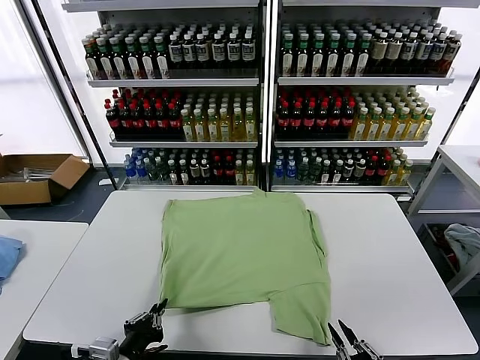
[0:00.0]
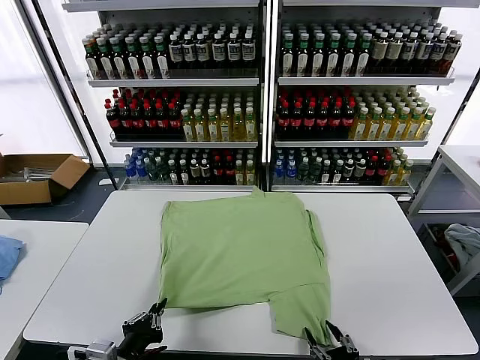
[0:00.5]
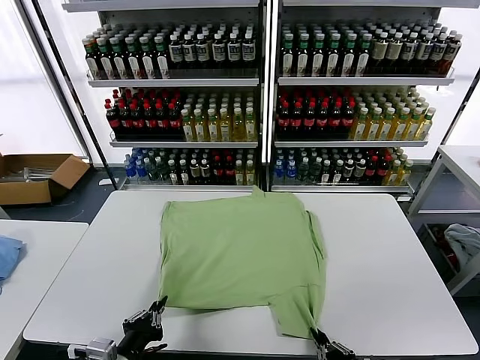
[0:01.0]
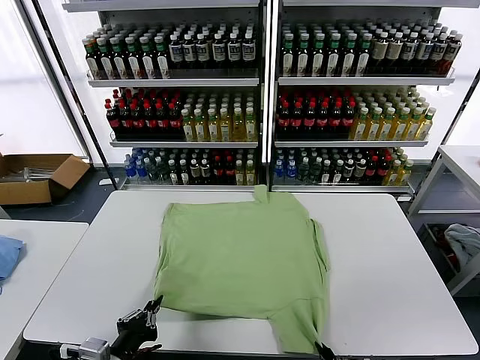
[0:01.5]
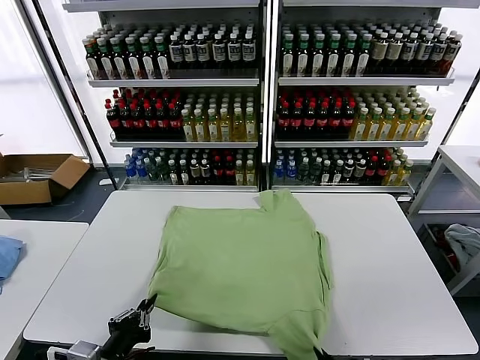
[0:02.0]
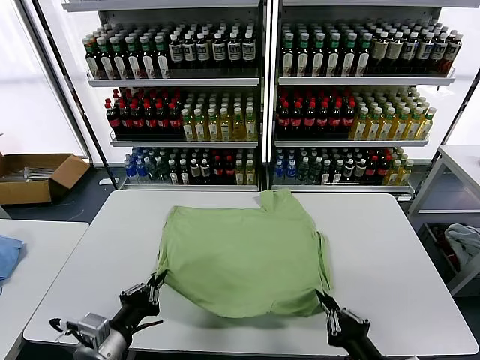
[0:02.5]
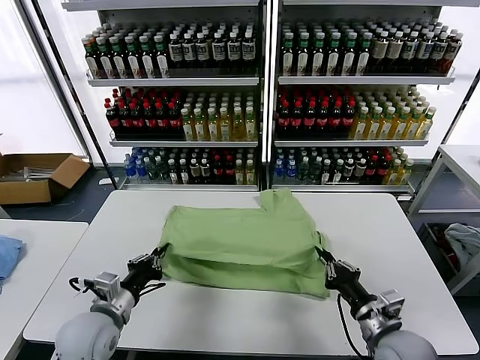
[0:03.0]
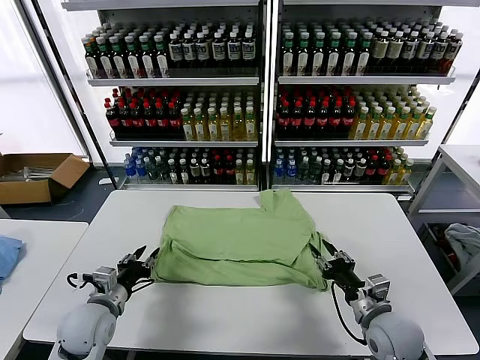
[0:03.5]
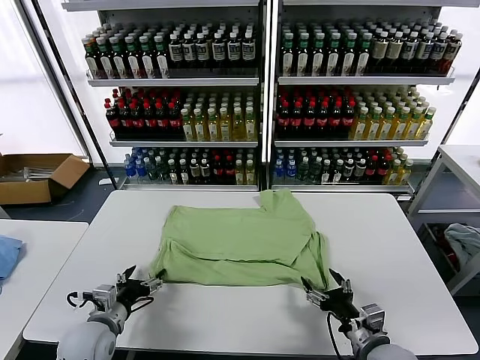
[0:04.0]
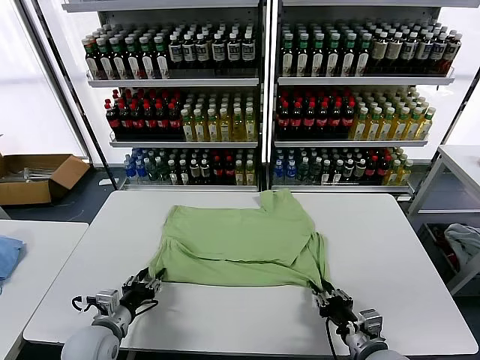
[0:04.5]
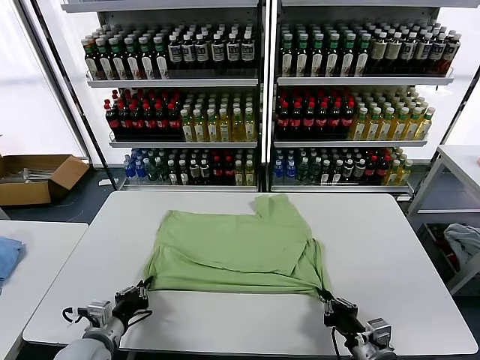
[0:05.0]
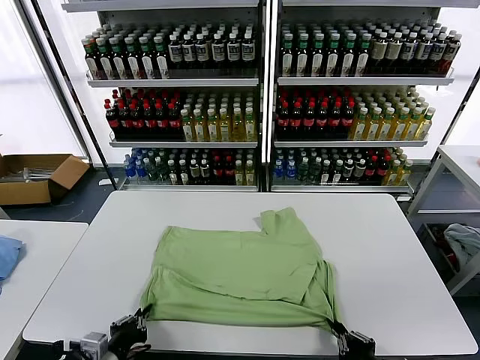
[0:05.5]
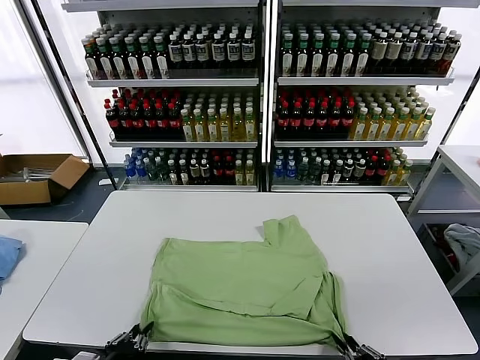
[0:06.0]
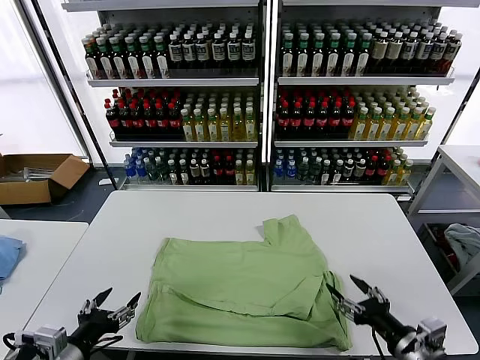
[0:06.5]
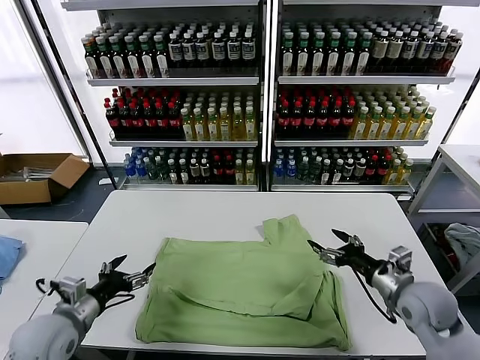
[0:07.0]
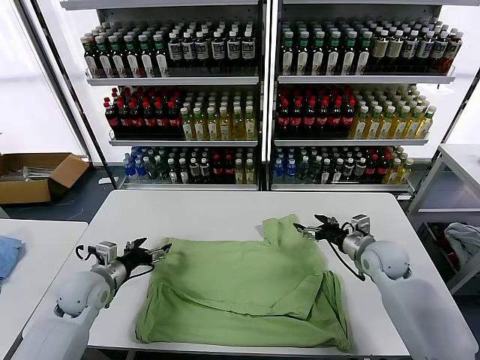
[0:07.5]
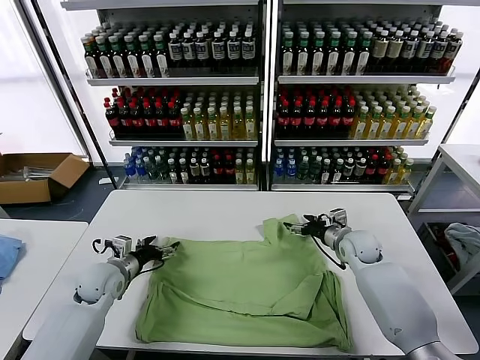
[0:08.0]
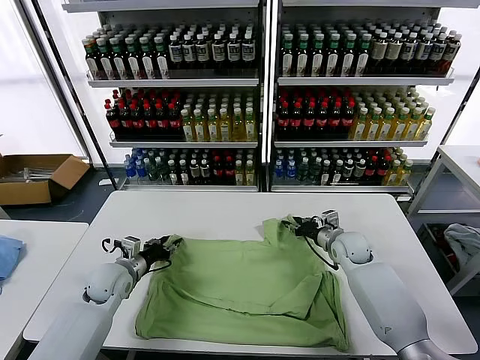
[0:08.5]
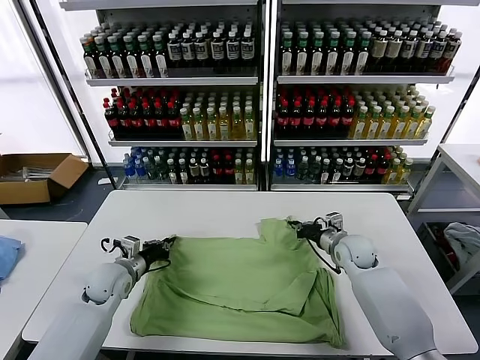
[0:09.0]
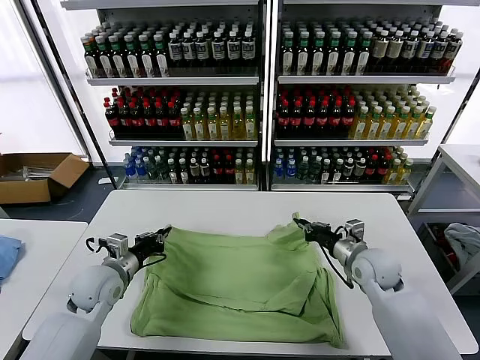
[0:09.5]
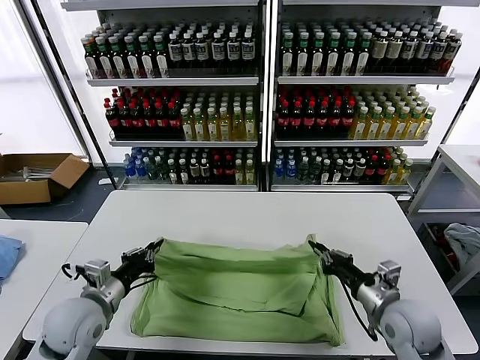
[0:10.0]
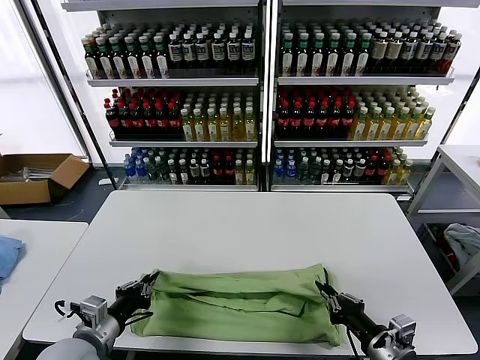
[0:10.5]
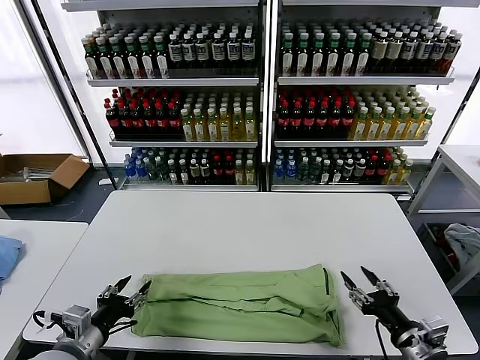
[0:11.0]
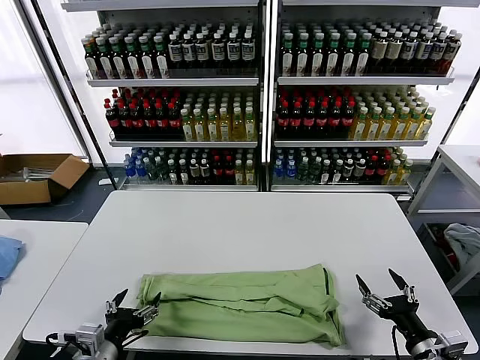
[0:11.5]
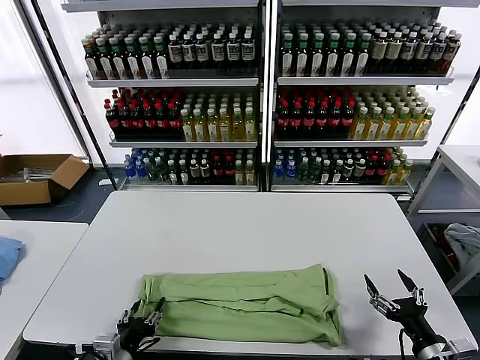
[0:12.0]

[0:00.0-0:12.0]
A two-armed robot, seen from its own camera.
Task of the whole recording: fold and organize the clothes.
Step, 0:01.5 to 0:03.5: use both grippers to drag the lower edge of the fabric forward and fold it over the upper edge.
Step, 0:04.0 to 0:06.0: Drag the clothes downward with both gripper.
Step, 0:06.5 to 0:08.5: use both grippers simultaneously to clamp the upper edge of the clothing fabric.
Step, 0:09.0 to 0:10.5: use both grippers to drag the upper edge of the fabric backward and fold it over the lower edge.
0:00.0 to 0:02.0: The right gripper travels upward by approximately 5 cm, and closes.
0:02.0 to 0:04.0: The left gripper travels forward and downward by some 15 cm, and opens its fingers, while the right gripper shifts some 20 cm forward, and opens its fingers.
0:04.0 to 0:06.0: The grippers both shift backward by approximately 15 cm. The left gripper closes its fingers, while the right gripper closes up.
0:06.0 to 0:08.0: Both grippers move forward, approximately 35 cm. The left gripper opens. Meanwhile the right gripper opens its fingers.
0:08.0 to 0:10.0: The left gripper heads backward and upward, covering approximately 15 cm, and closes up, while the right gripper travels backward by some 25 cm, and closes.
0:10.0 to 0:12.0: The left gripper moves backward and downward, some 15 cm, and opens its fingers. The right gripper travels backward and to the right by approximately 15 cm, and opens.

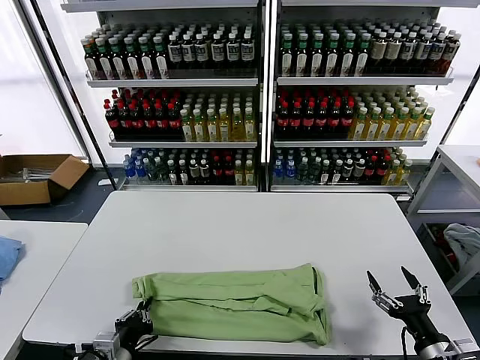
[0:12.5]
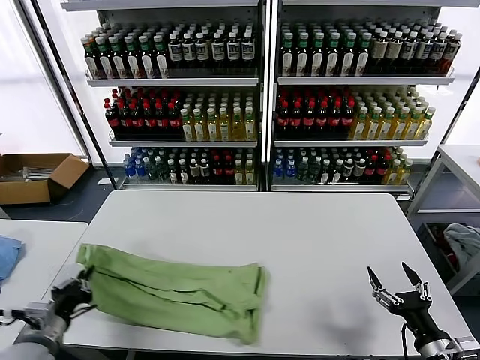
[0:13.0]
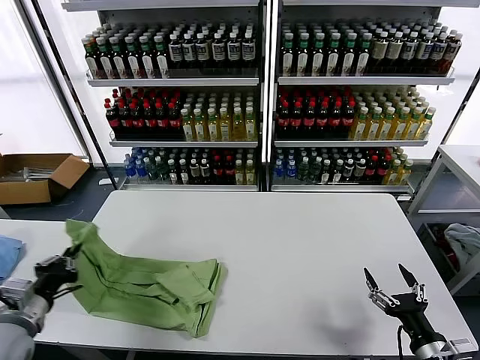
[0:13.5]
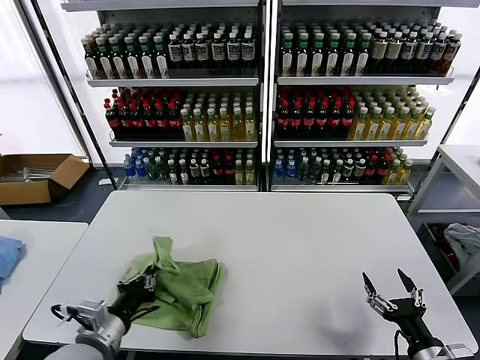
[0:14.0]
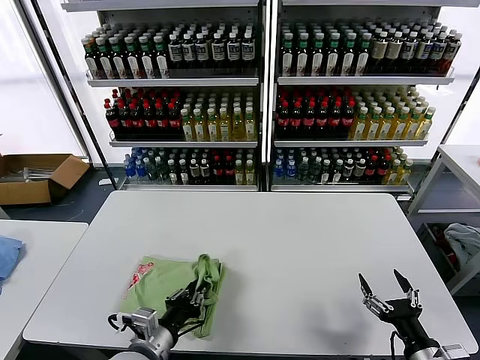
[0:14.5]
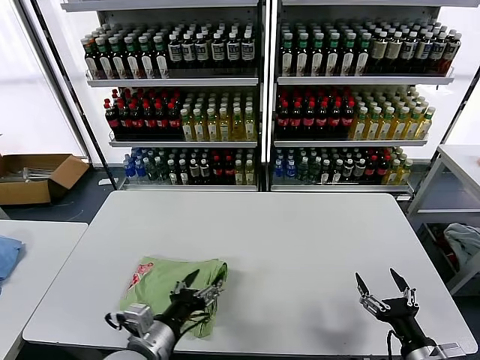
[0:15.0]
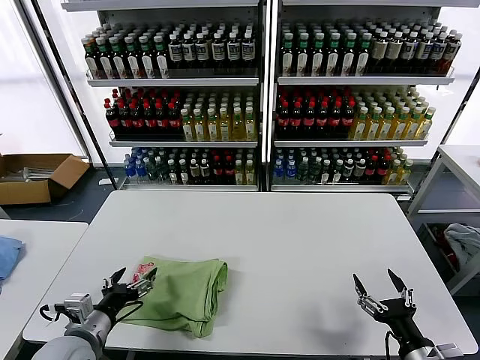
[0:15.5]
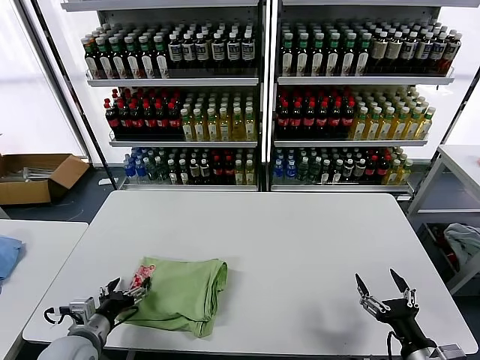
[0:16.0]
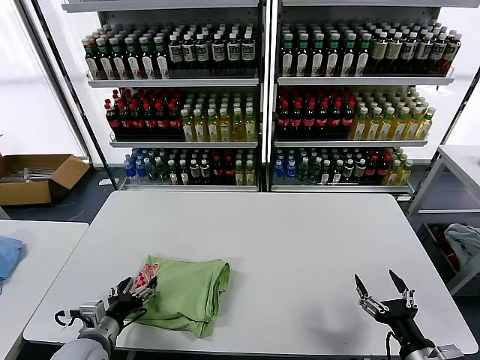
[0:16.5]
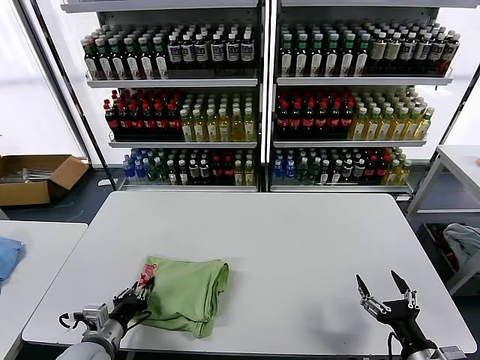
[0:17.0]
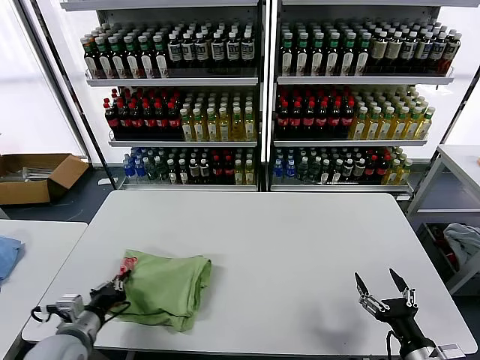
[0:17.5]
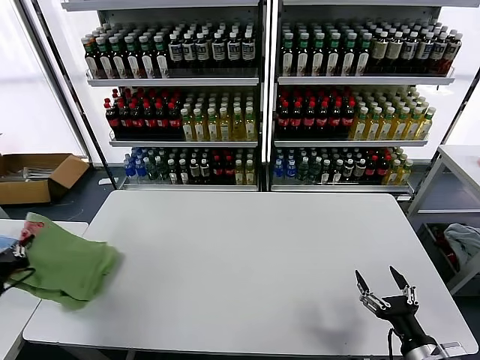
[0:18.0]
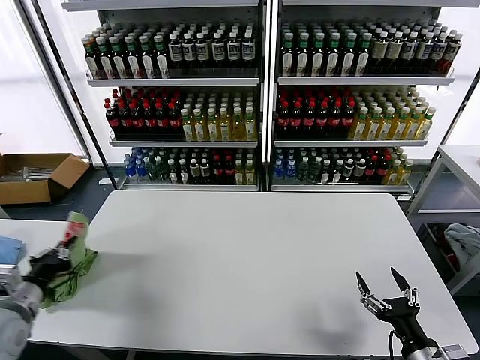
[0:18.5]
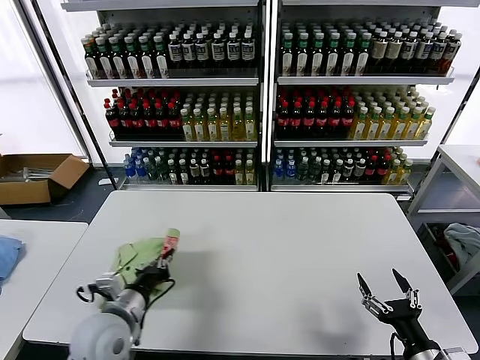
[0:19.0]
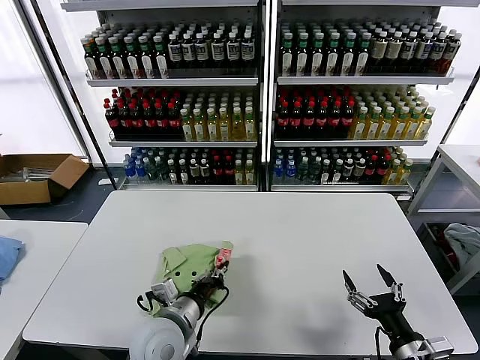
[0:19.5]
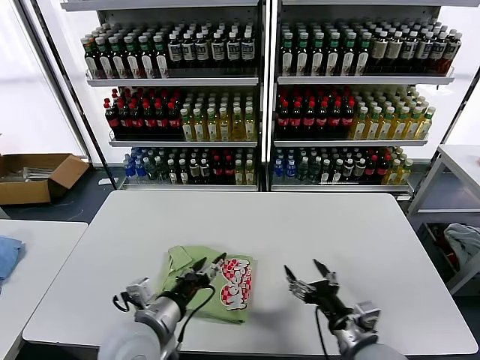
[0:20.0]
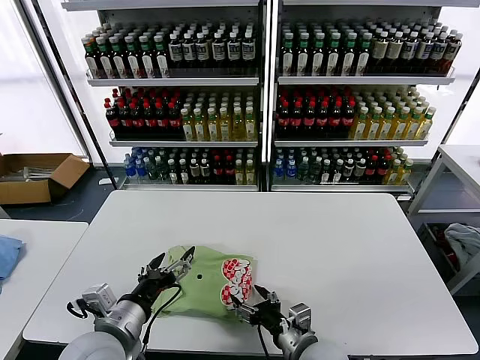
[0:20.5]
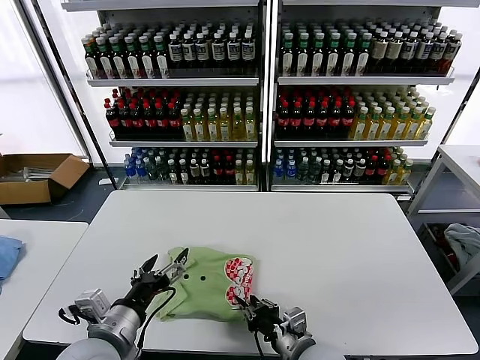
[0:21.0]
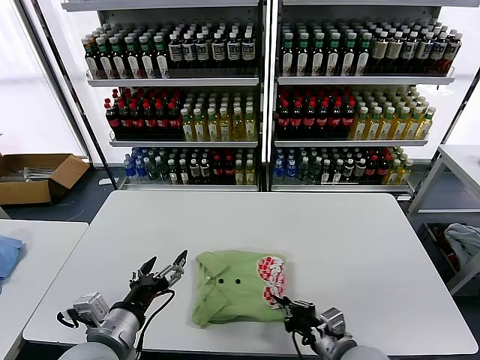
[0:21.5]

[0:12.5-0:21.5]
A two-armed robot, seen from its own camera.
Task of the whole recording: fold and organize the clothes.
Step, 0:12.5 to 0:14.5: use the left gripper to drag the left edge of the fabric to the left and folds it over the right edge.
Step, 0:15.0 to 0:19.5: Flip the folded clothes over with left gripper.
0:12.5 to 0:14.5: The left gripper moves about 15 cm to the left and comes back.
0:14.5 to 0:17.0: The left gripper moves to the left and downward, approximately 15 cm, and opens, then closes once more.
0:17.0 to 0:19.5: The left gripper is displaced to the right by approximately 15 cm.
0:19.5 to 0:21.5: The right gripper travels to the left and forward by about 15 cm, and closes up. The left gripper goes about 10 cm to the left, upward and backward, and opens up.

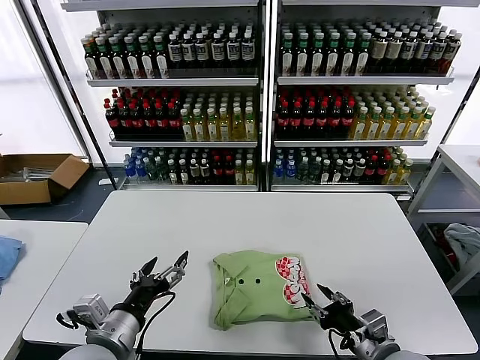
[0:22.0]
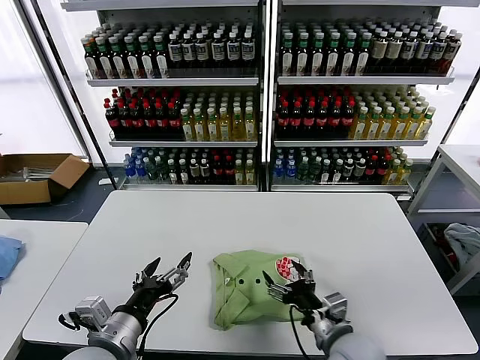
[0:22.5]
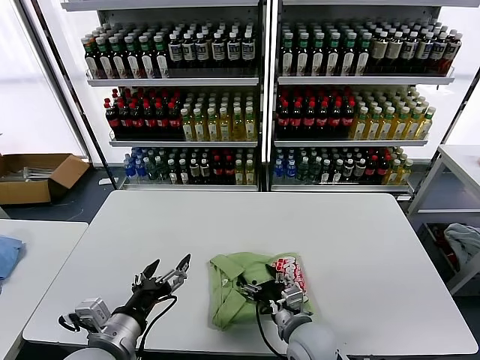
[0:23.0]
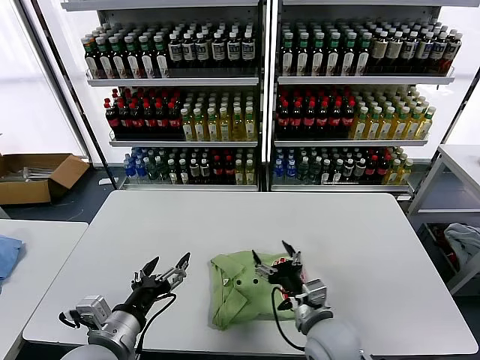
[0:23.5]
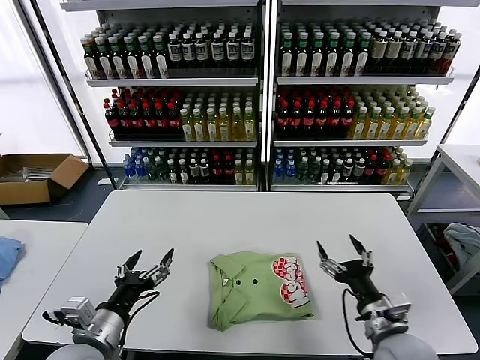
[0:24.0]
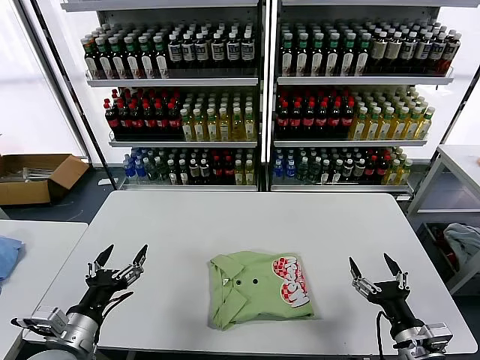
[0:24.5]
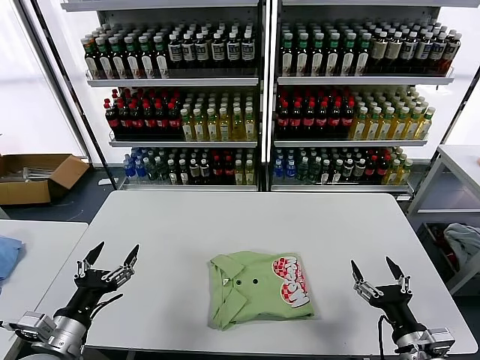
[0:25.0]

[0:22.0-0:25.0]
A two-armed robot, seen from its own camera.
Task of the whole recording: fold and organize the clothes.
0:22.0 to 0:23.5: The right gripper shifts about 15 cm to the left and forward, and opens.
0:23.5 to 0:25.0: The right gripper is displaced to the right and backward by about 20 cm, while the left gripper moves to the left, about 10 cm.
